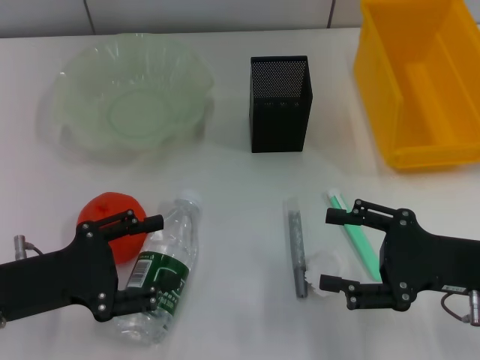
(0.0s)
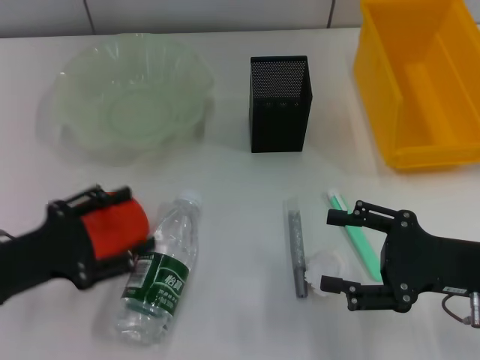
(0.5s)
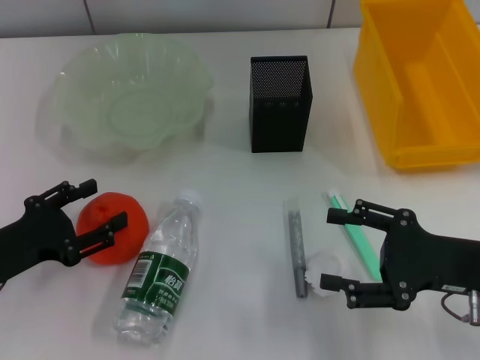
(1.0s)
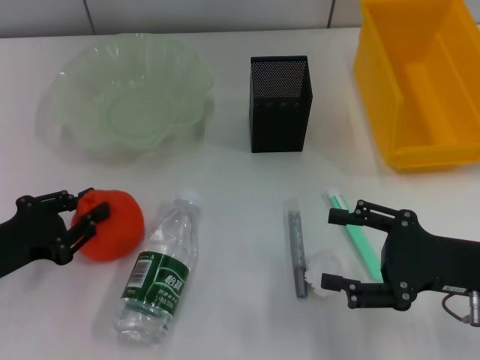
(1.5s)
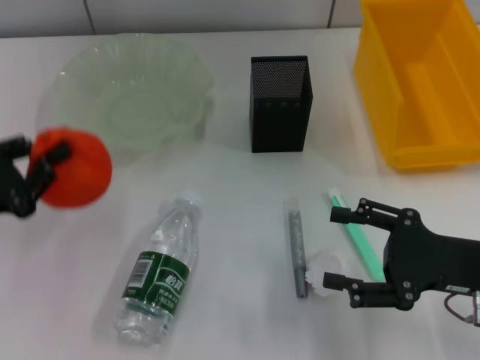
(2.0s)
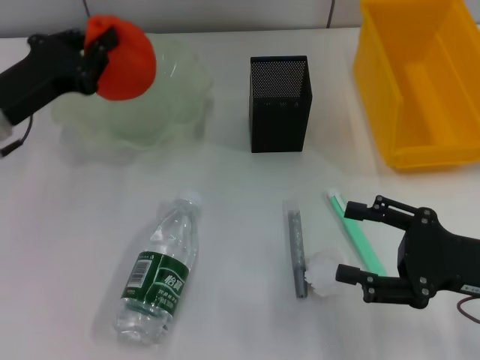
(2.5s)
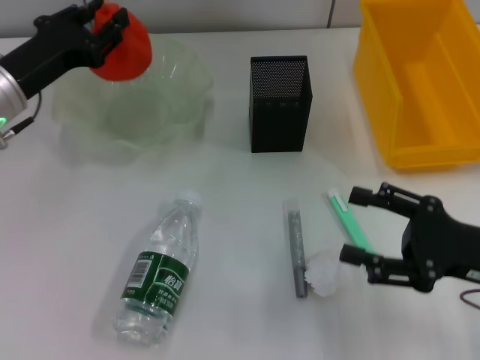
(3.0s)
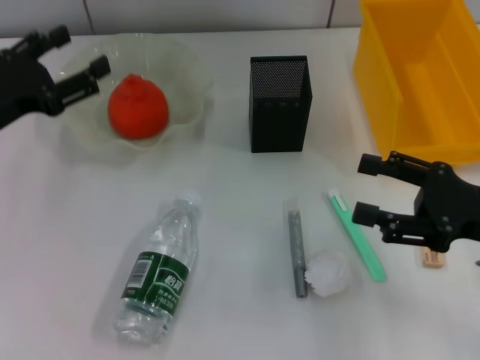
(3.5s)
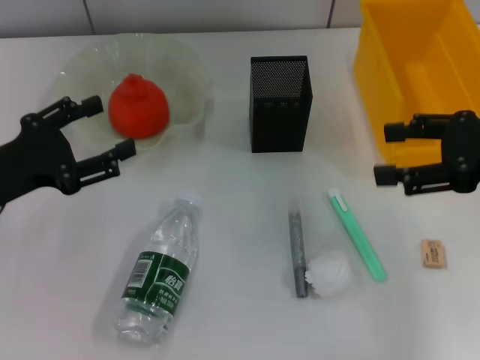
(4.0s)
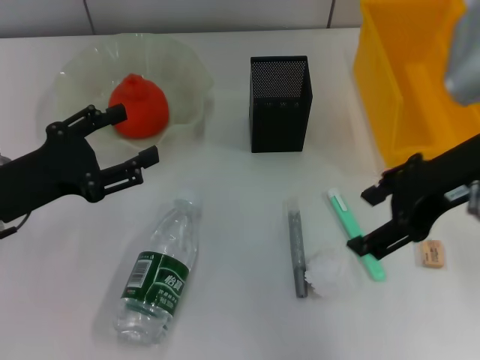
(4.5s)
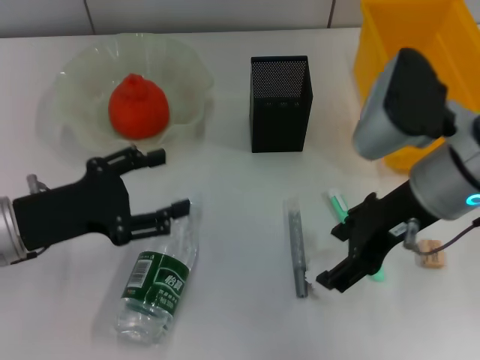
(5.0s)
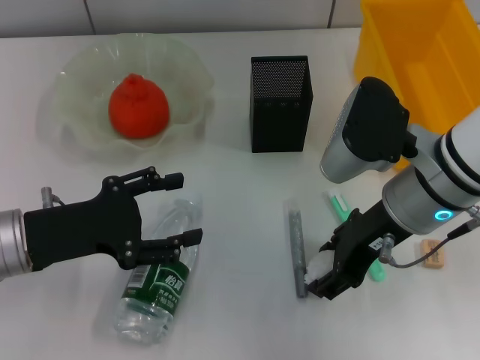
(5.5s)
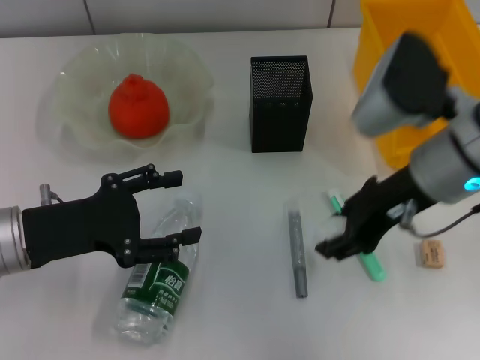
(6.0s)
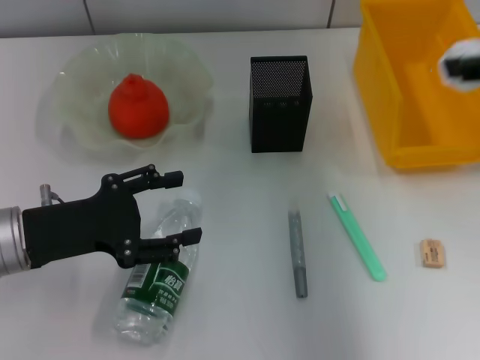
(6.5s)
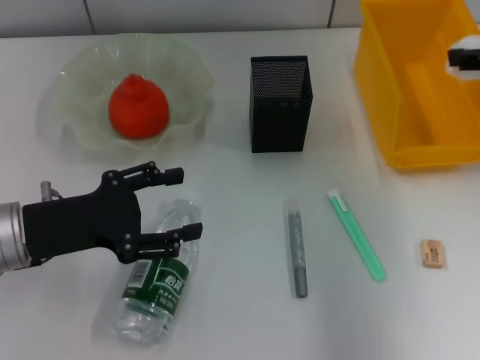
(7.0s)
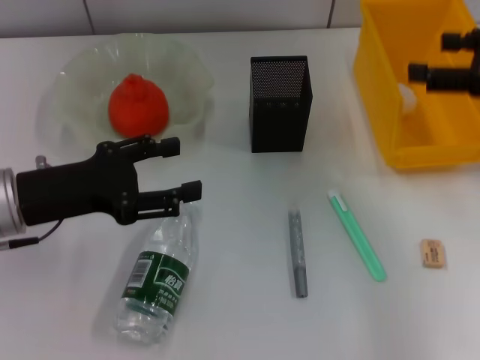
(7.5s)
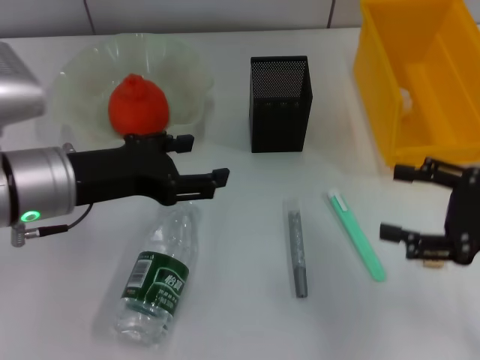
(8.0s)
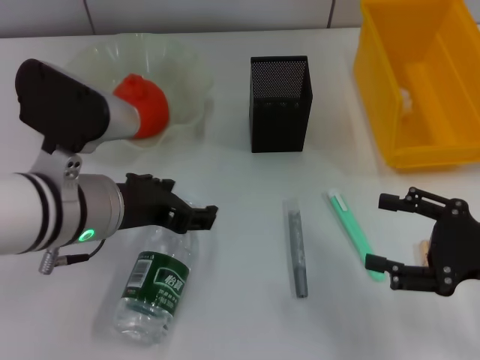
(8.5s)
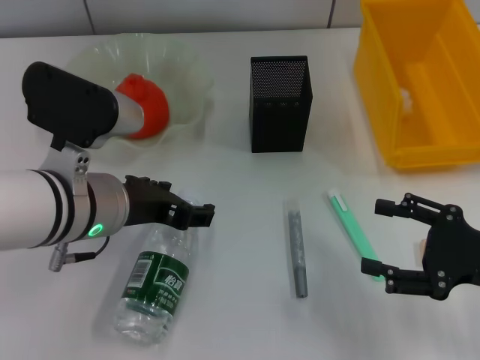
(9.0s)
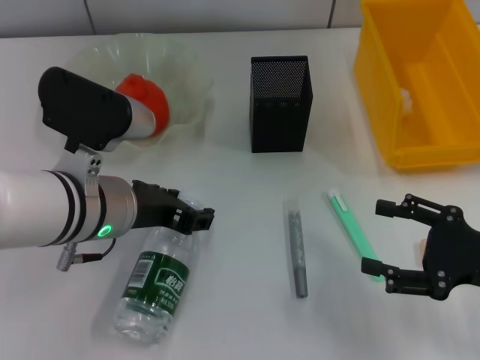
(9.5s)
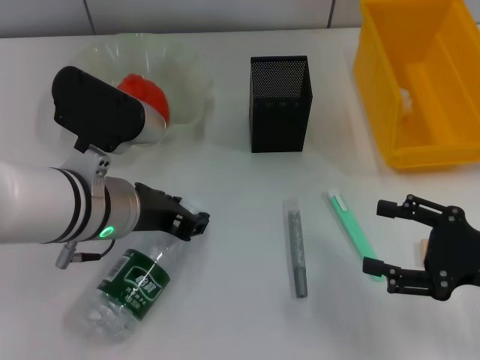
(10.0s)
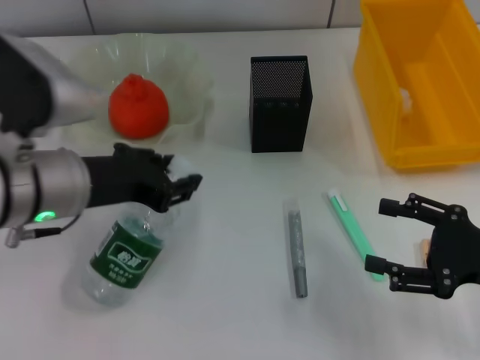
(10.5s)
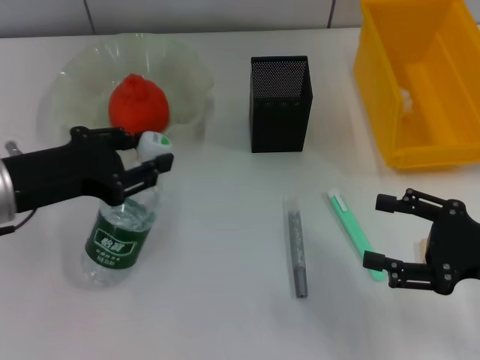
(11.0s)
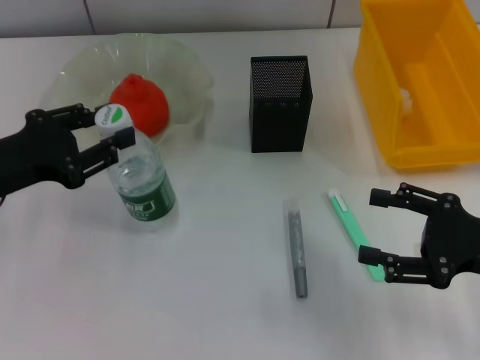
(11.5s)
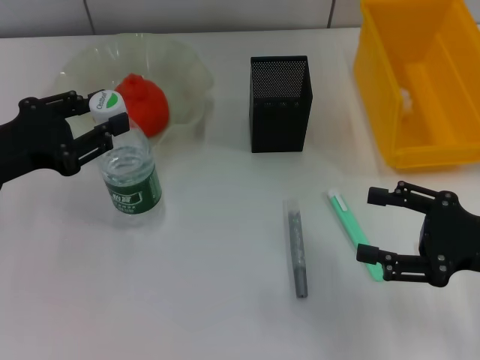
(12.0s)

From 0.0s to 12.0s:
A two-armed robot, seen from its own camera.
Step, from 0.0s to 1.0s: Grab the orange with the left hand.
Step, from 1.5s to 3.0s: Place the orange into the fruit bowl with the left hand.
Step, from 3.5s to 5.5s: Grab the paper ball with the right hand.
Step, from 6.0s to 7.0s: Place the paper ball into the trash can with the right hand.
Step, from 7.5s to 9.5s: Grab the water bottle with the left hand.
From 0.0s to 2.0s: The left gripper heads to the left, covering roughly 5 cm, and closes its fingers.
From 2.0s to 4.0s: The left gripper goes forward and returns, about 15 cm each way, and opens up; the right gripper moves upward and forward, approximately 15 cm.
From 4.0s to 6.0s: The right gripper heads to the left, covering roughly 10 cm, and closes up.
From 6.0s to 8.0s: The right gripper shifts roughly 20 cm to the right, backward and downward, and opens its fingers. Meanwhile the left gripper is displaced upward and to the right by roughly 10 cm.
From 8.0s to 10.0s: The left gripper heads to the right, covering about 5 cm, and closes.
From 10.0s to 12.0s: The left gripper goes some 15 cm to the left.

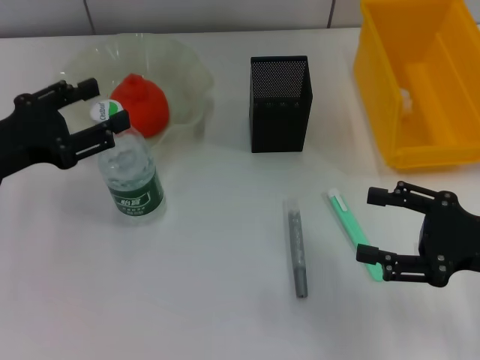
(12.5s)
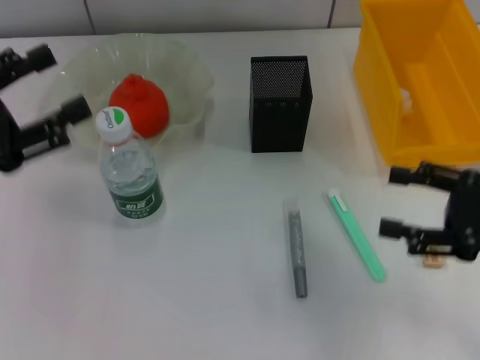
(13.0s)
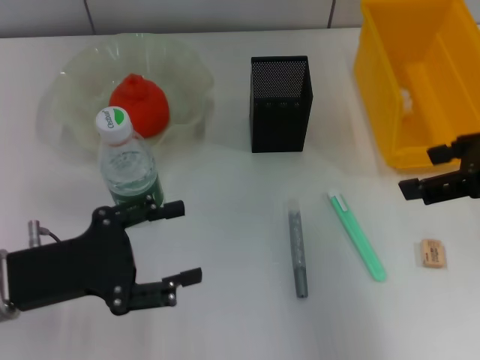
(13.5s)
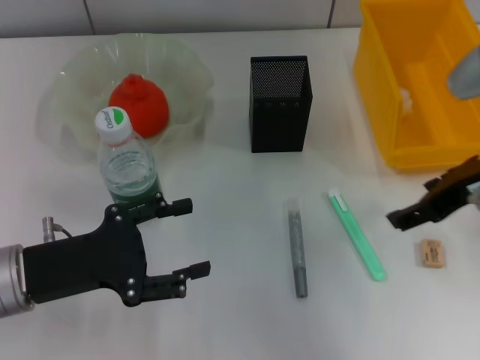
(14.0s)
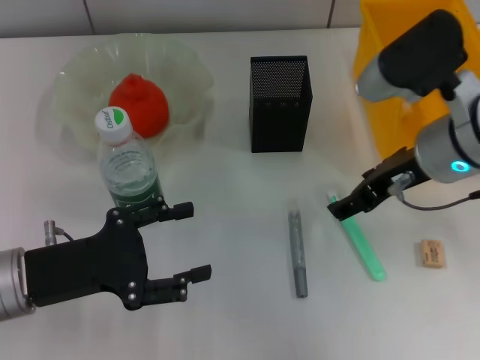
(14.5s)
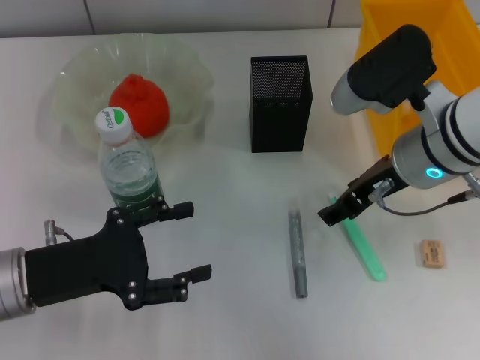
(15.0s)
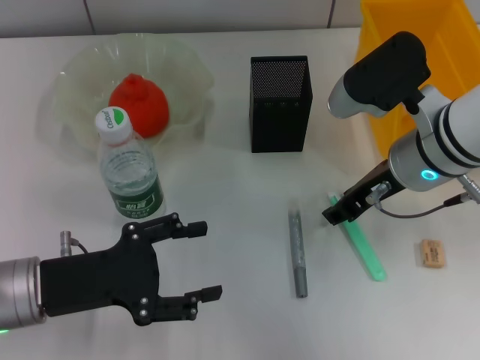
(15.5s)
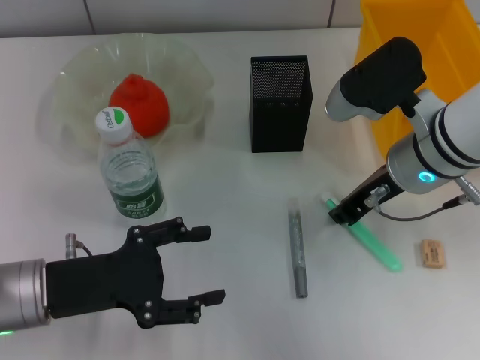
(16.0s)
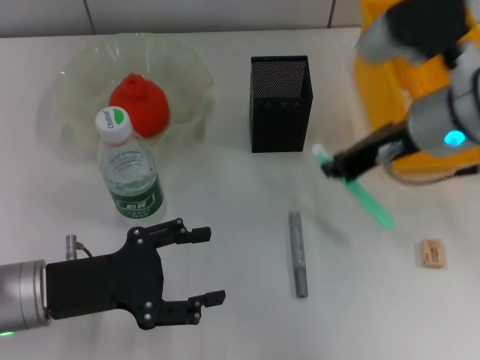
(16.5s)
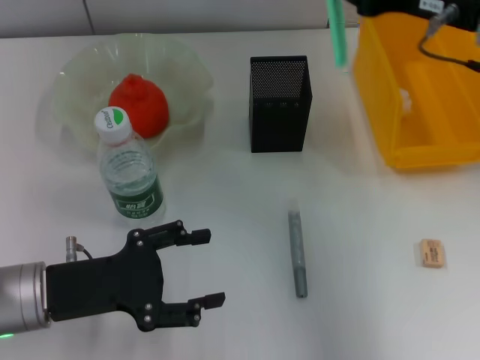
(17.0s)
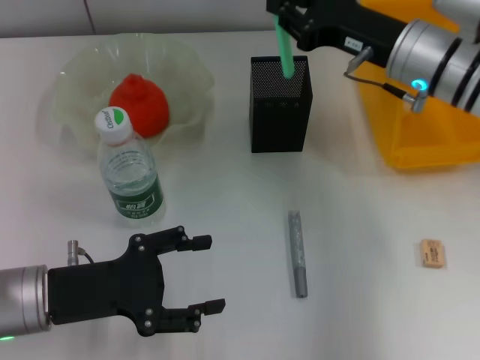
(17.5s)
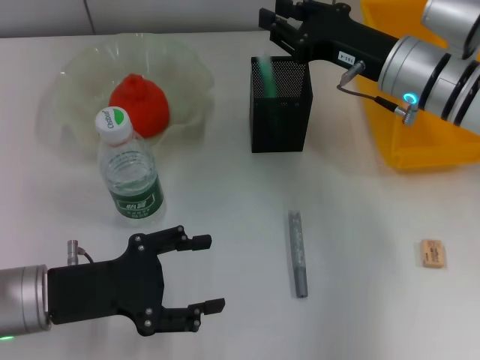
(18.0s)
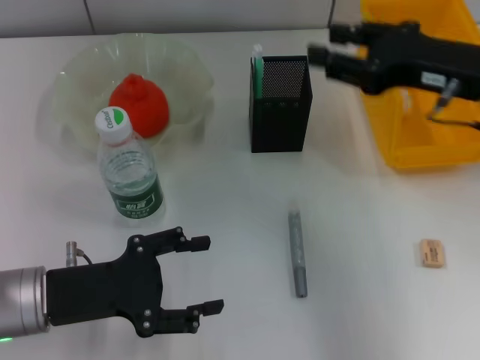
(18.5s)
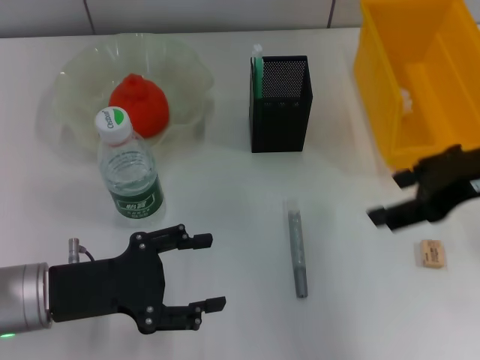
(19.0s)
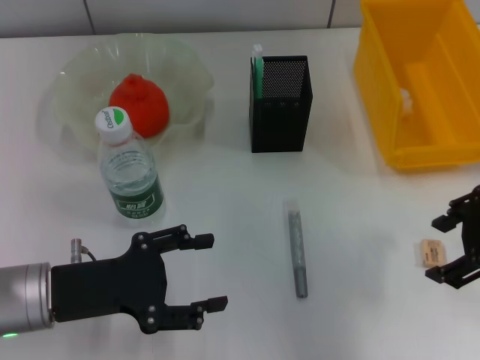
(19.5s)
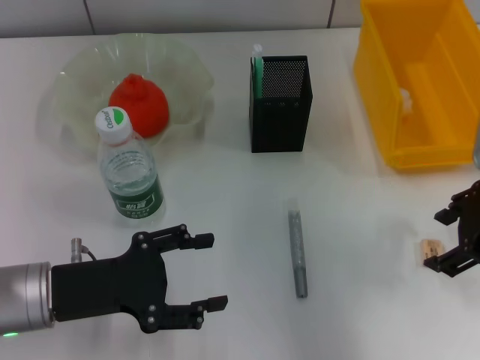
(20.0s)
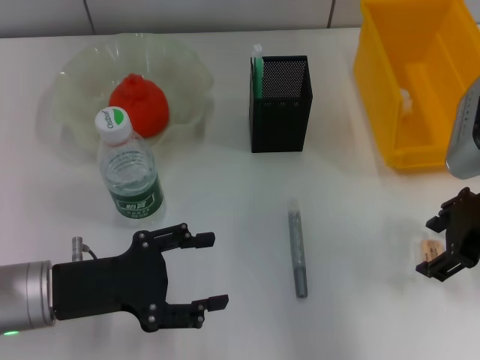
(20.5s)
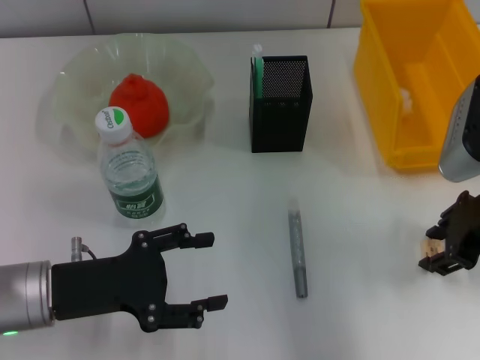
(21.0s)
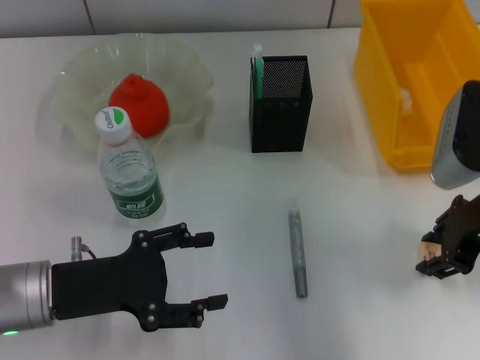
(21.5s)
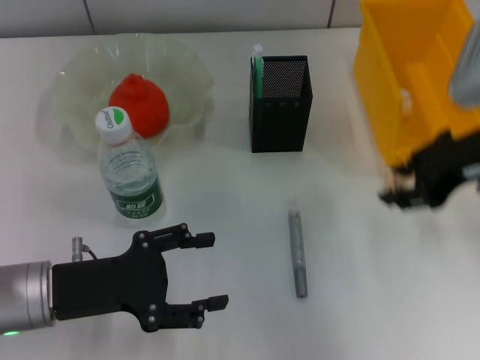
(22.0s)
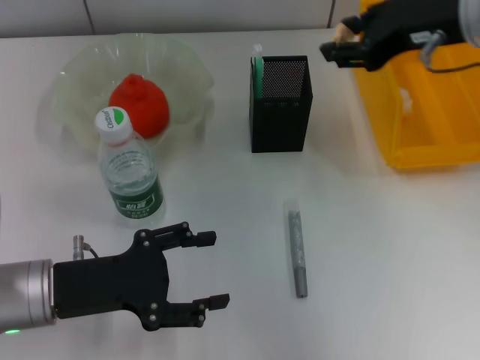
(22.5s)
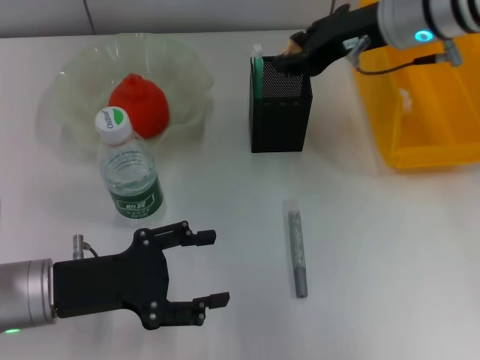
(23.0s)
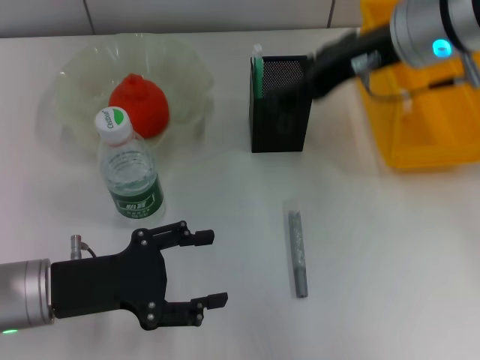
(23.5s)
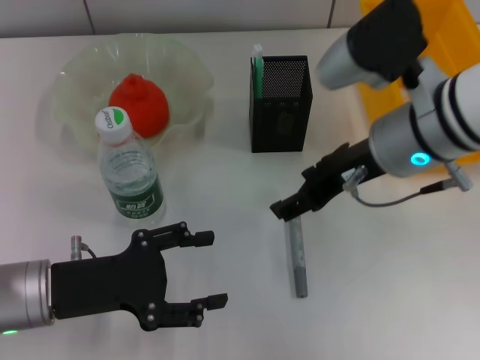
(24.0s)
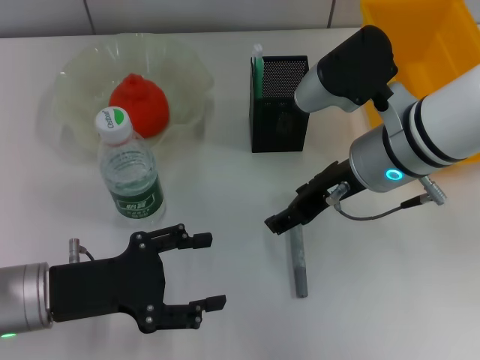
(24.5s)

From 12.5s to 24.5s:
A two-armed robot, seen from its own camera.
Step, from 13.0s to 15.5s: Grab the blue utility knife with the right hand.
Step, from 16.5s to 18.0s: Place the blue utility knife into the pen holder with the right hand.
Step, from 18.5s to 21.0s: Grab the eraser with the right hand.
Step, from 21.5s to 23.0s: Put the eraser into the pen holder with the right hand.
From 12.5s to 14.5s: The left gripper shifts about 10 cm backward and downward; the right gripper travels to the left, forward and upward by about 15 cm.
From 14.5s to 16.5s: The right gripper closes its fingers.
From 16.5s to 18.5s: The right gripper goes approximately 5 cm to the right, and goes downward and returns, roughly 5 cm each way.
From 18.5s to 20.5s: The right gripper moves about 5 cm, and opens.
From 20.5s to 22.5s: The right gripper goes some 15 cm upward, forward and to the left, and closes.
From 22.5s to 24.5s: The right gripper heads downward and to the left, covering approximately 10 cm, and opens.

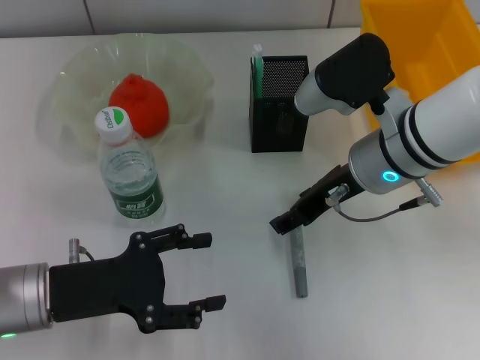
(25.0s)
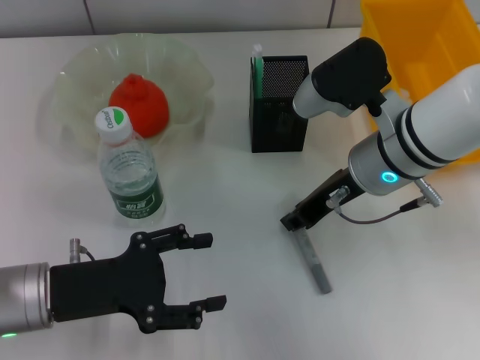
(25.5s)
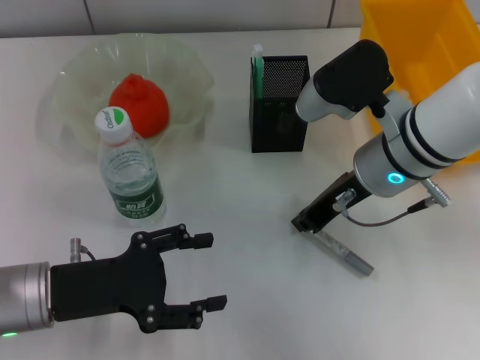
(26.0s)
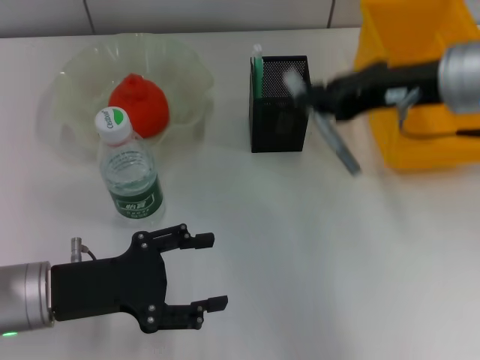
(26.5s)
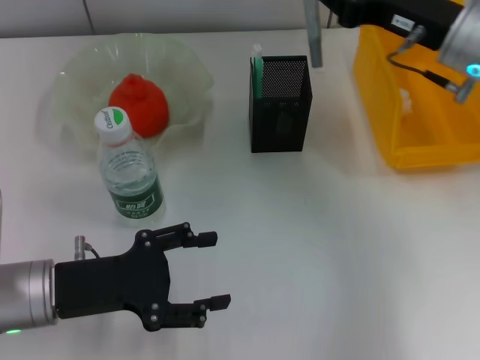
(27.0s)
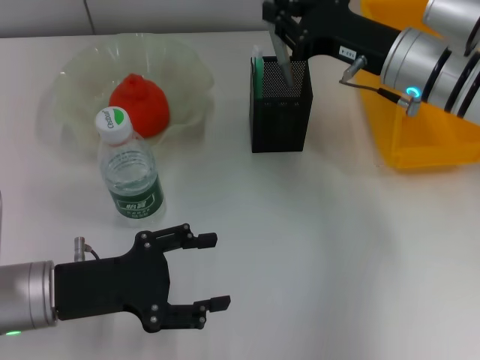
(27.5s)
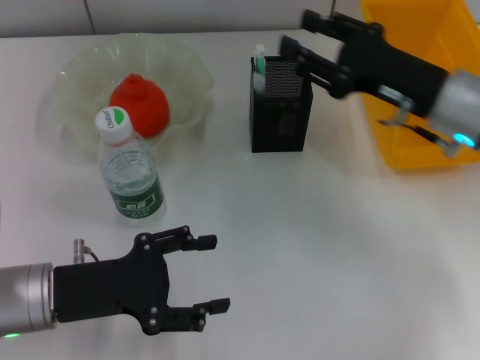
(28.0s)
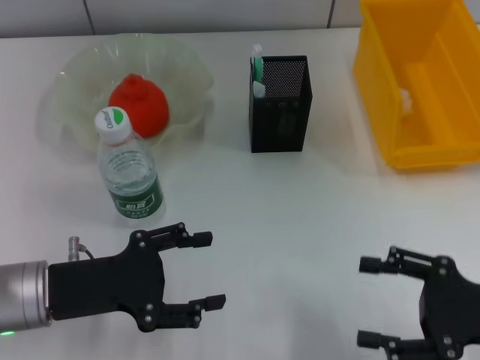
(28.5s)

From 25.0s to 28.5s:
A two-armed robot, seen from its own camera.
Step, from 26.0s to 27.5s: Place the gray glue into the pen holder with the right hand.
From 25.0s to 27.0s: The right gripper heads to the right, covering approximately 10 cm, goes upward and returns, some 10 cm each way, and closes.
From 27.0s to 28.5s: The right gripper moves backward and downward, about 20 cm, and opens up.
